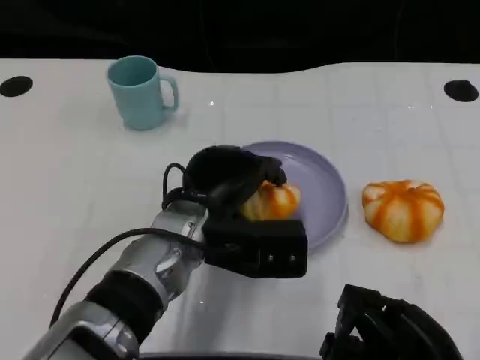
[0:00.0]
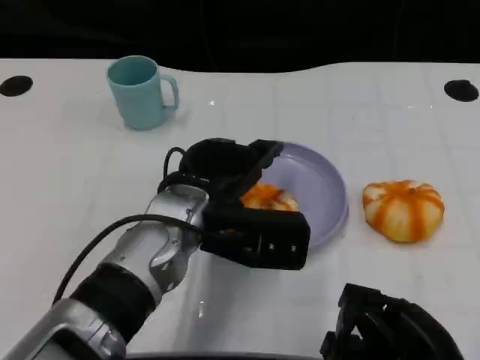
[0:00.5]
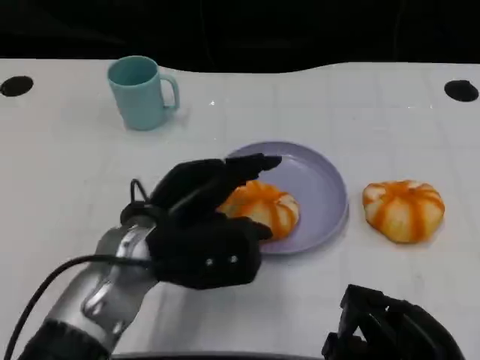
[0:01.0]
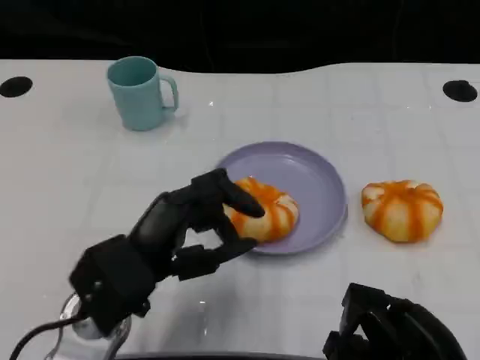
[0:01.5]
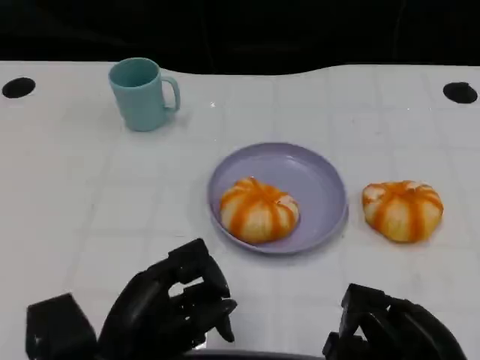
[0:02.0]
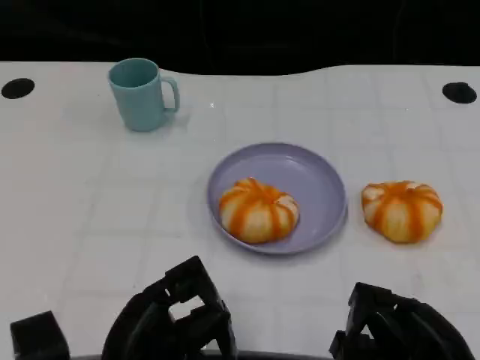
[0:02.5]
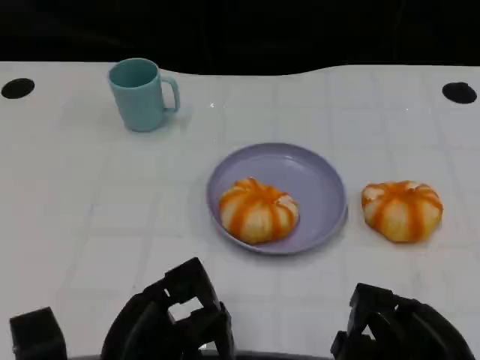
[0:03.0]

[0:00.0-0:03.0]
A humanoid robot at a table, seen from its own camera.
Task of the whole recording: Grasp the bread from the table and place it into the plate.
0:00.0 to 0:01.5: The left hand is displaced to the left and backward by some 10 cm.
0:01.5 to 0:03.0: The left hand shifts about 5 cm backward.

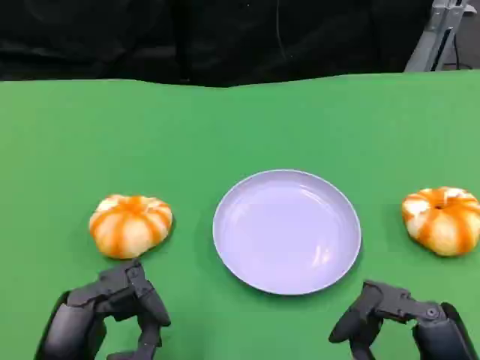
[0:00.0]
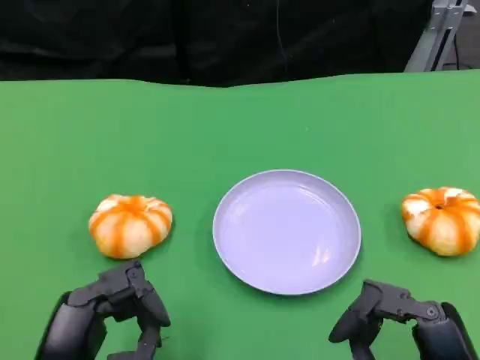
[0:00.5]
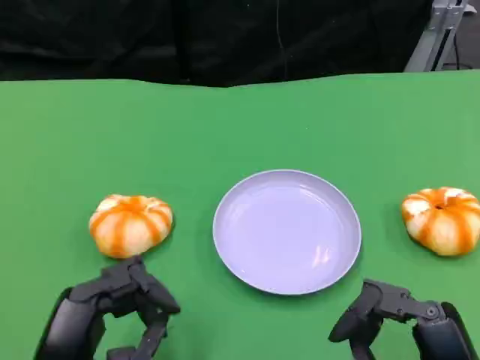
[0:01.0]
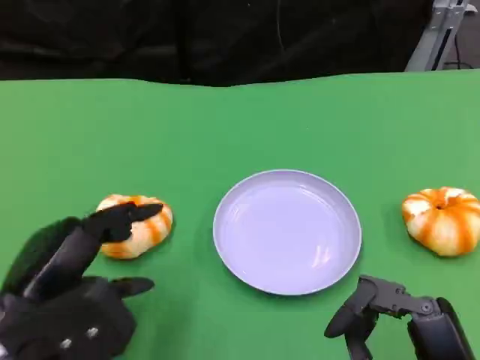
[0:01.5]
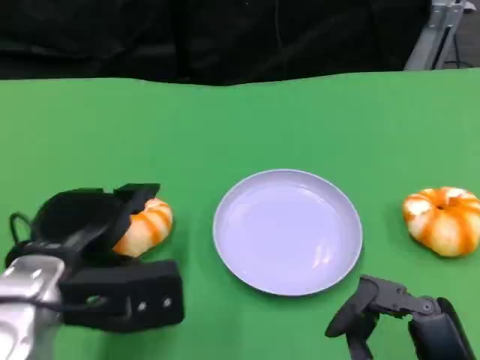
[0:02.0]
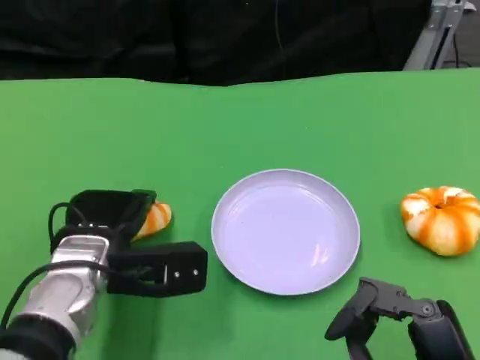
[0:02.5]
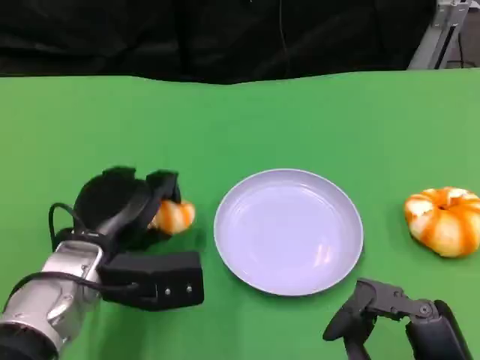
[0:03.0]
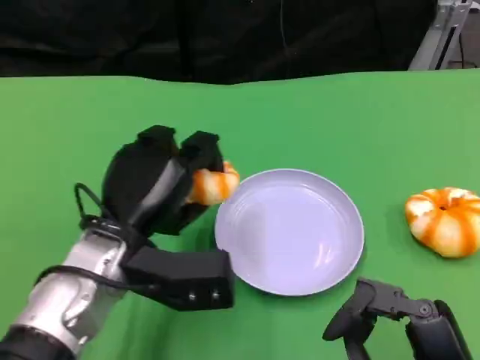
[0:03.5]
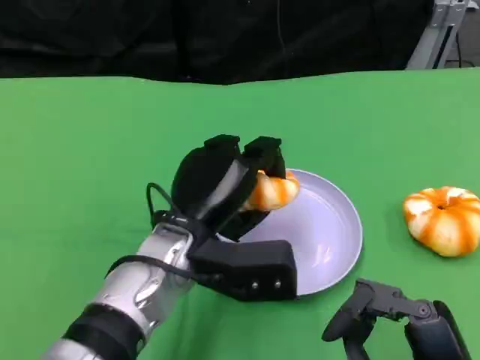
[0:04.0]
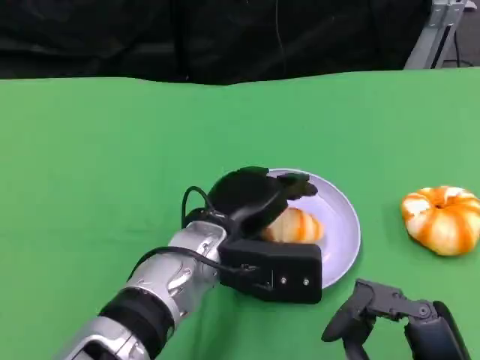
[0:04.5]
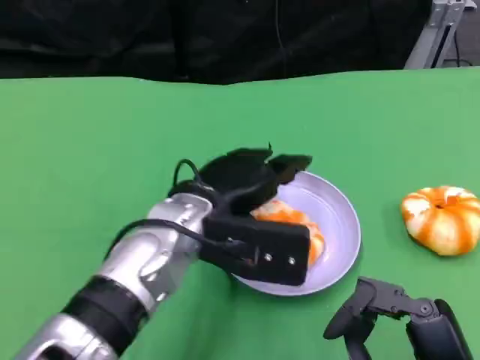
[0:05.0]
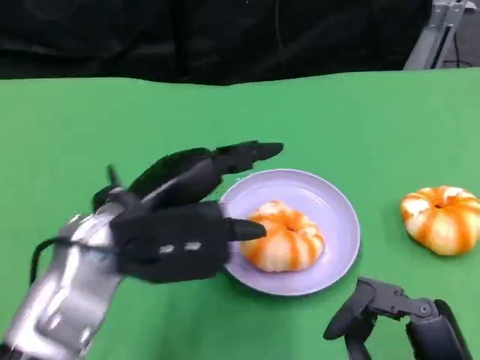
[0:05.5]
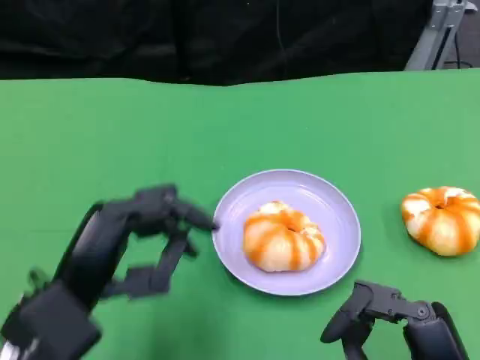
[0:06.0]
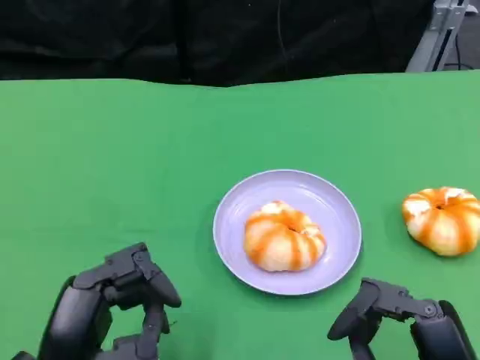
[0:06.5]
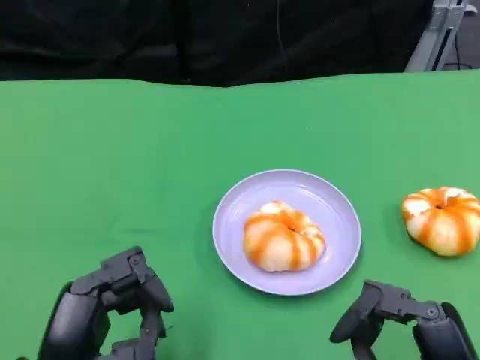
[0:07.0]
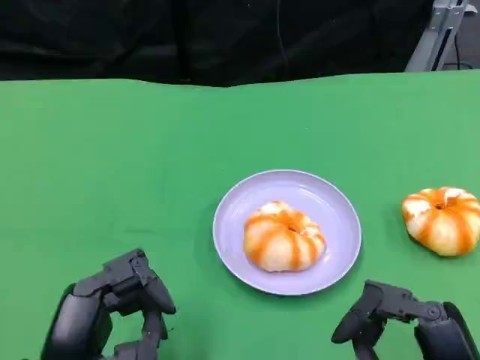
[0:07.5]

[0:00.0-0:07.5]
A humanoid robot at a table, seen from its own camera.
Task of the whole recording: Grasp the bread from the table and place it into the plate.
0:00.0 to 0:02.0: The left hand is displaced forward by some 10 cm.
0:02.0 to 0:04.0: The left hand goes approximately 10 cm to the right.
0:04.0 to 0:05.5: The left hand moves to the left and upward, approximately 10 cm.
0:05.5 to 0:07.5: The left hand goes some 15 cm backward and downward.
